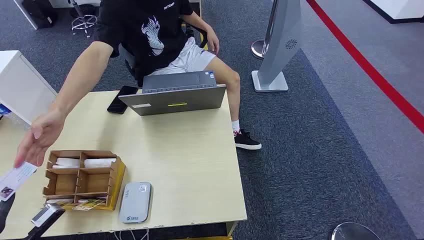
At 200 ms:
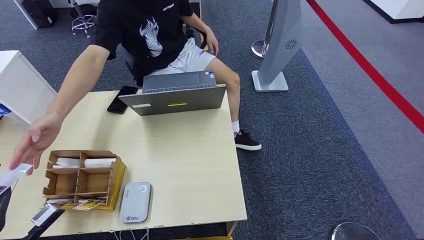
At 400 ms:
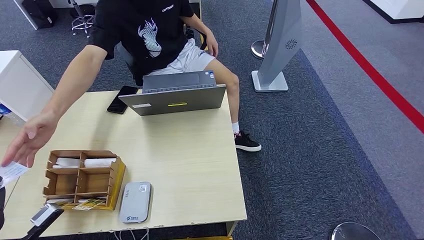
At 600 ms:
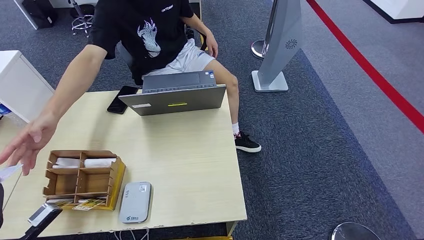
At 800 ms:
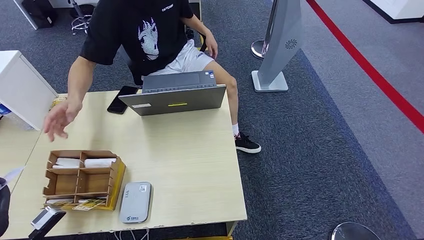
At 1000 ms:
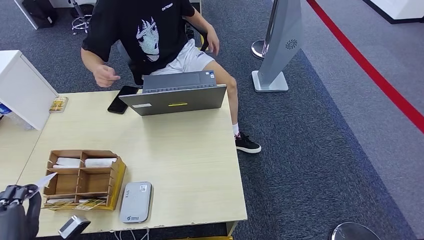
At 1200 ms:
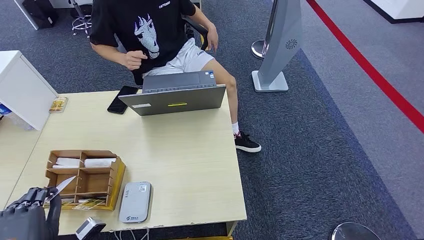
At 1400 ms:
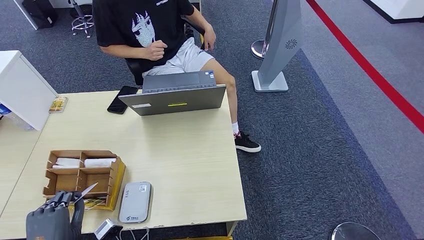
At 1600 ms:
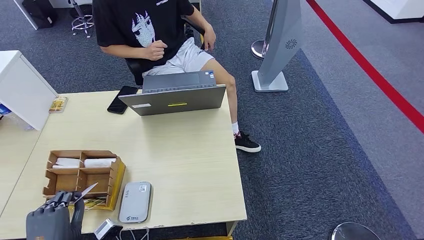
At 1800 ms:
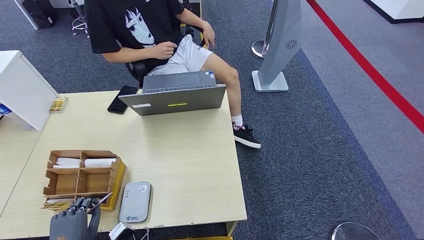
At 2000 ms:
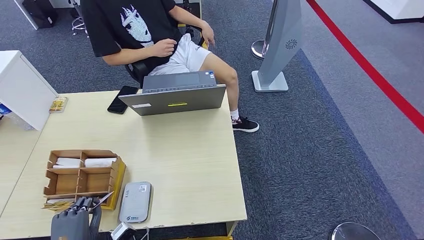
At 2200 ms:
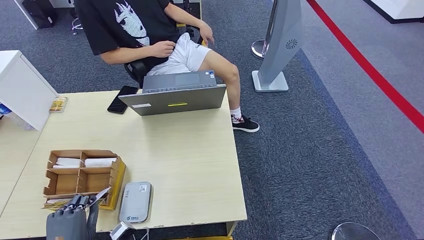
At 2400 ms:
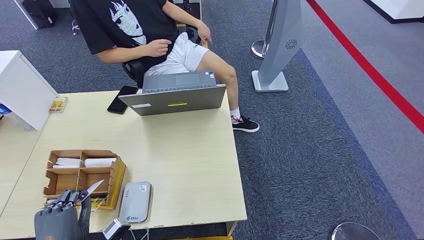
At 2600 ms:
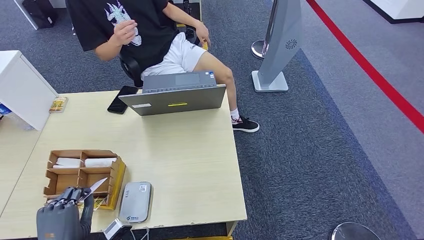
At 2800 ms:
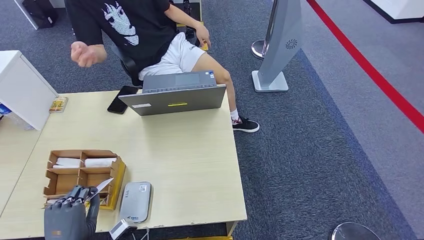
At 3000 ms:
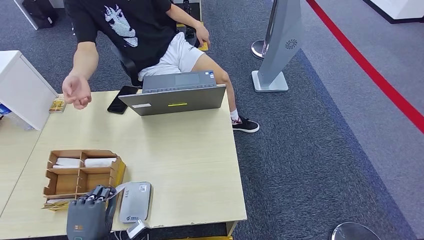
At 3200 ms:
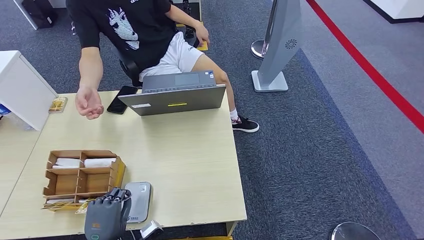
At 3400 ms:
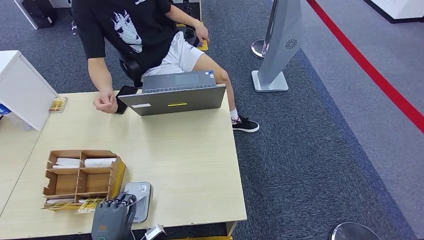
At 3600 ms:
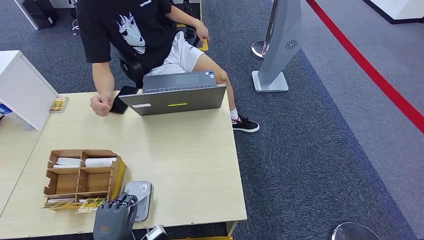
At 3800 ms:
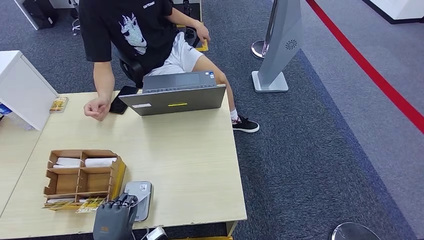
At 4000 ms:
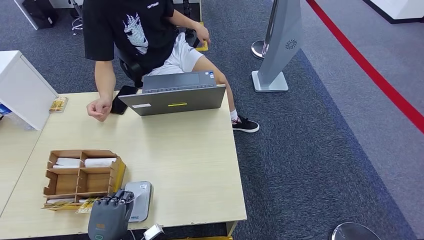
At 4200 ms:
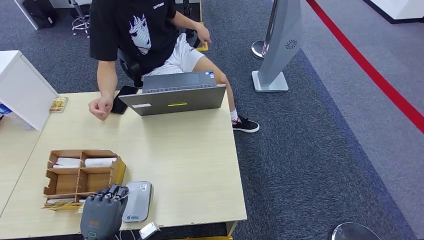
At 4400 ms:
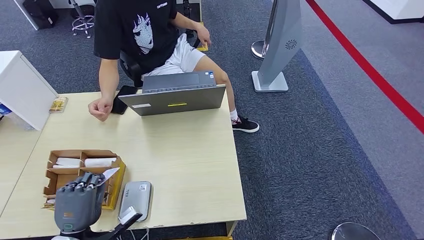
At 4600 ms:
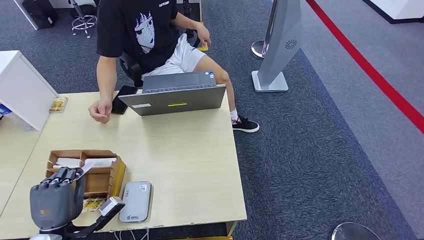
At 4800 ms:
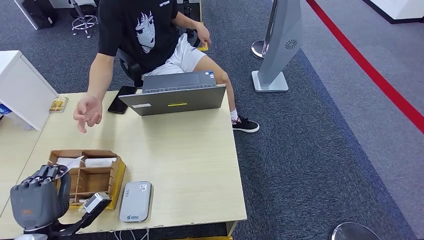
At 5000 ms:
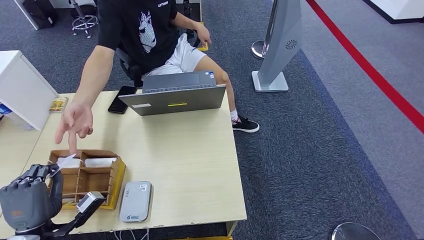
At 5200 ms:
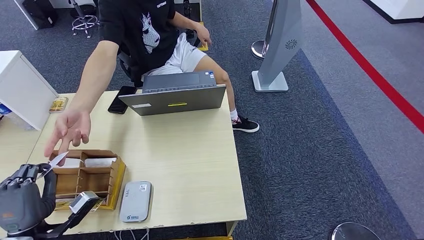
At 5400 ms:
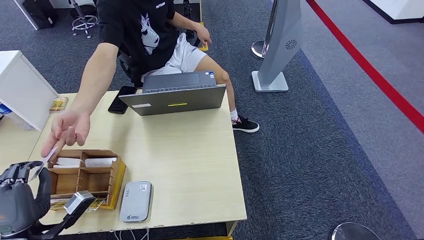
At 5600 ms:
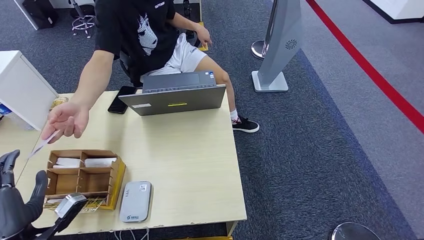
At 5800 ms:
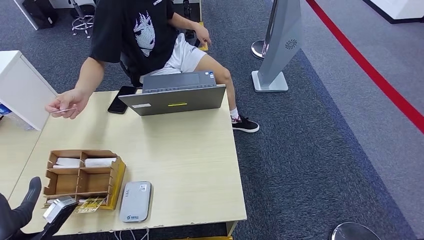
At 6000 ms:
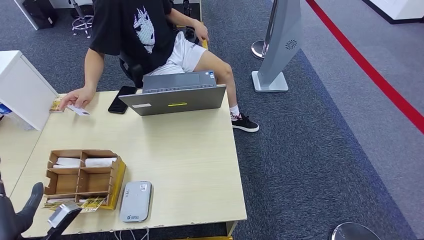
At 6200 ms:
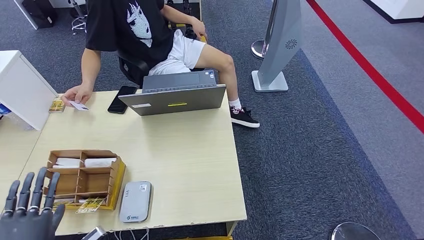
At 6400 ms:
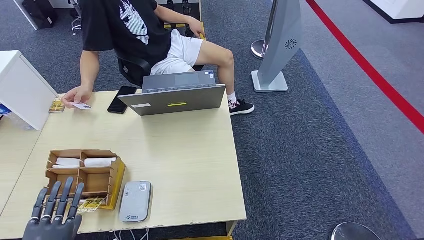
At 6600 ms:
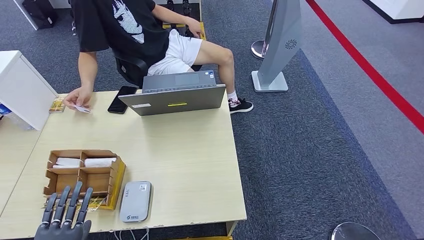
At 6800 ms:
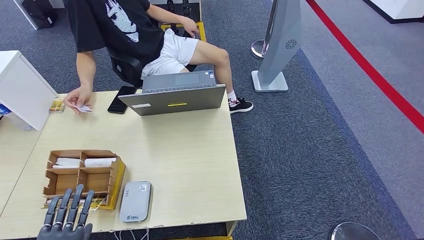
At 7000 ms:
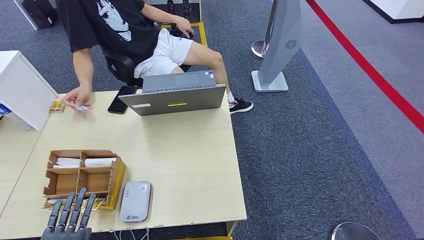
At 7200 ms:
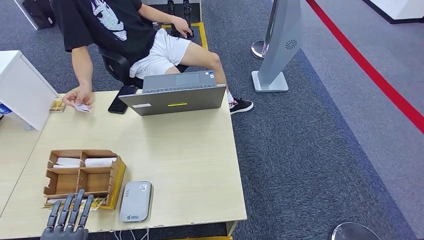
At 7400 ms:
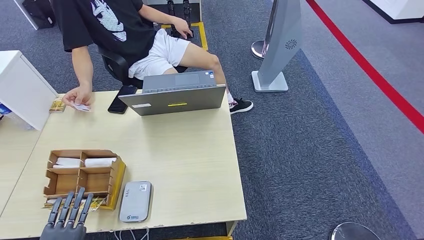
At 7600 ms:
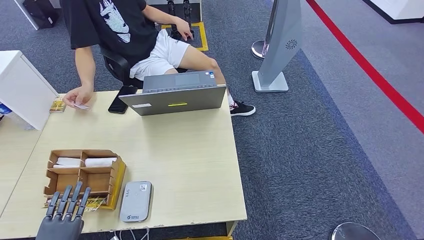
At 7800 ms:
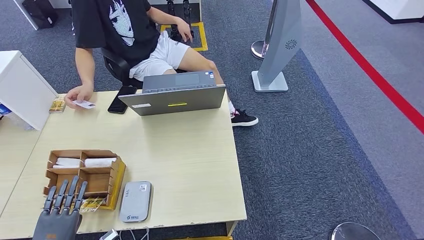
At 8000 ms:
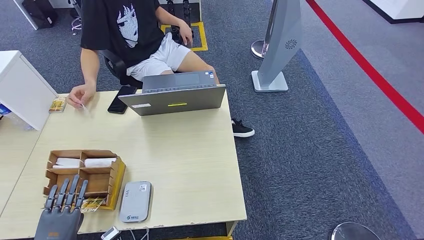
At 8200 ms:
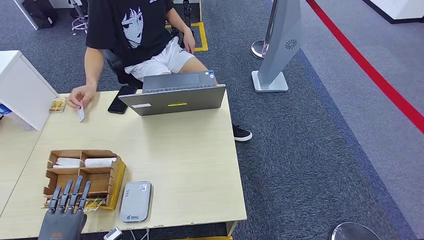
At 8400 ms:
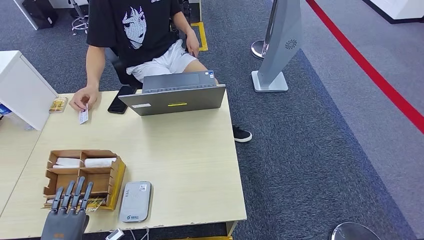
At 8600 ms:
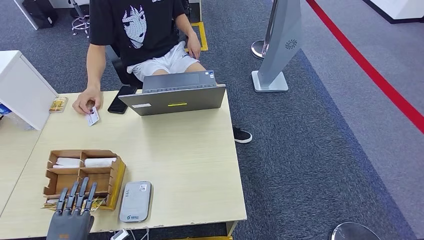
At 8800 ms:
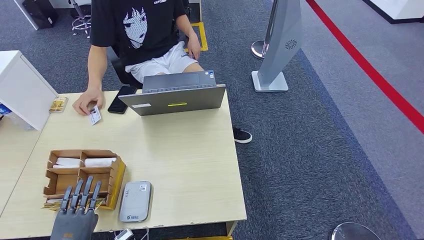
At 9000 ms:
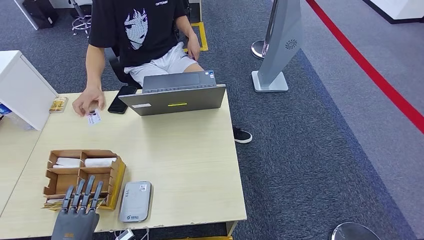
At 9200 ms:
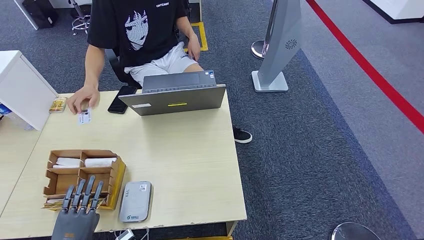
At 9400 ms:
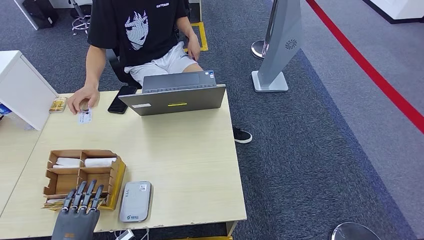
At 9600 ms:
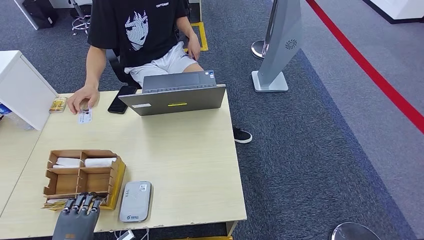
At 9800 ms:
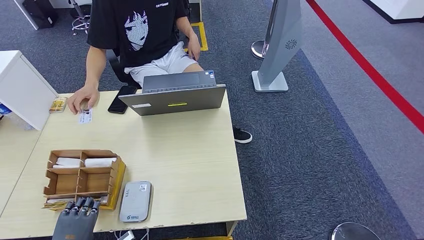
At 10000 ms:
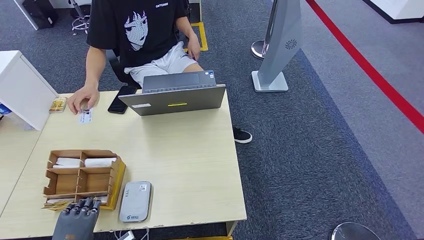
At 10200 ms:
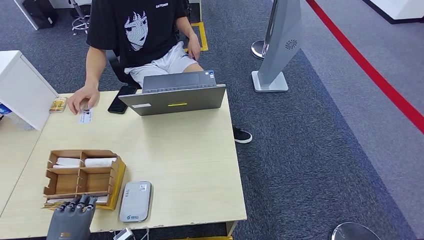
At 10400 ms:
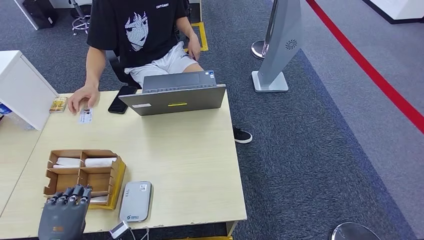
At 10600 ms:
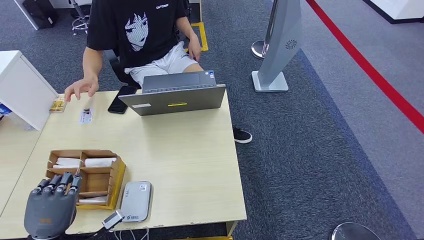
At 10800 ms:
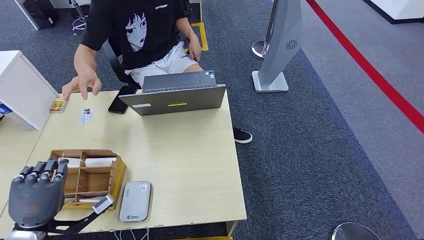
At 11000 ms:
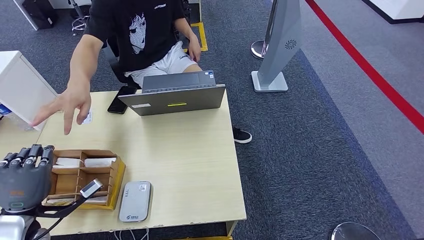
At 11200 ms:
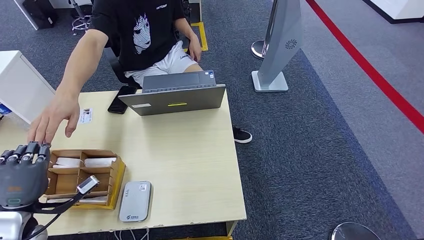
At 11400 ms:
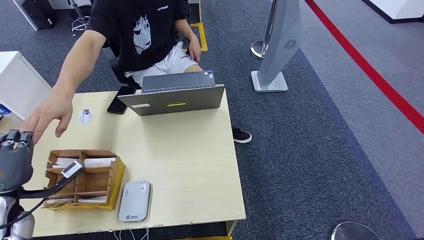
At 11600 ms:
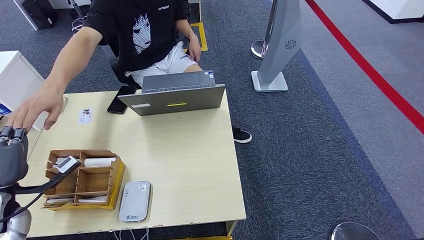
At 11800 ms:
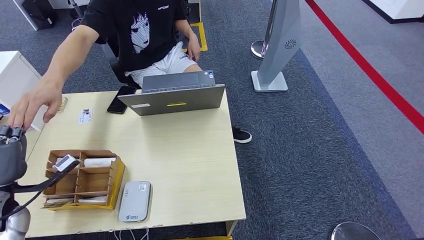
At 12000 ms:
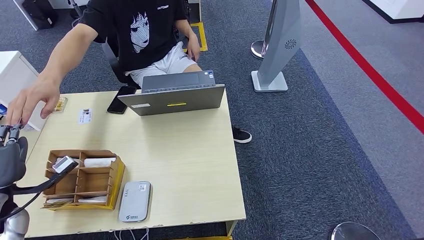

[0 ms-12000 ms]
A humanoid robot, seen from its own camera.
Step, 0 ms to 1600 ms: Take the ID card from the person's hand.
Step, 1800 ms to 4800 ms: Place the ID card on the card reader.
Step, 5000 ms to 6000 ms: Hand the ID card to the person.
Step, 6200 ms to 10800 ms: Pick up the room key from the key card box.
1600 ms to 3000 ms: The hands make only small movements.
3000 ms to 4400 ms: The hands stay close to where they were, moving slightly.
4400 ms to 6000 ms: The left hand travels to the left and upward by approximately 10 cm.
6000 ms to 7600 ms: The left hand moves downward and backward, some 10 cm.
7600 ms to 10400 ms: There are only small adjustments of the hands.
10400 ms to 12000 ms: The left hand heads forward, to the left and upward, covering roughly 20 cm.

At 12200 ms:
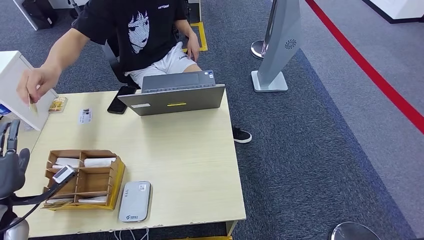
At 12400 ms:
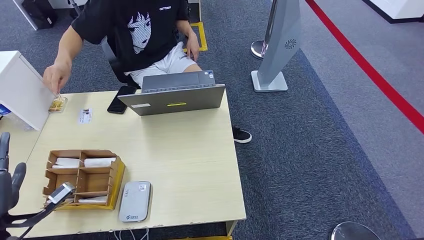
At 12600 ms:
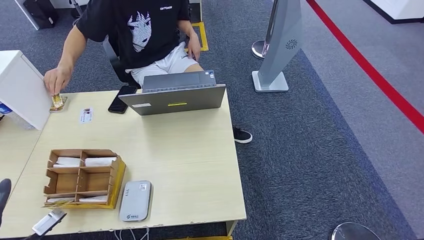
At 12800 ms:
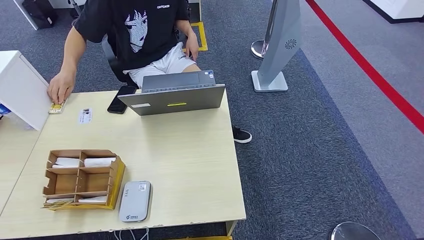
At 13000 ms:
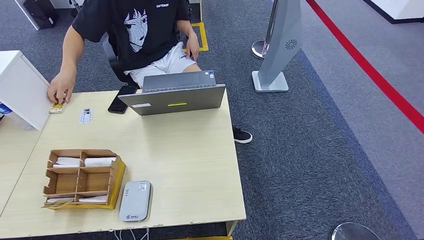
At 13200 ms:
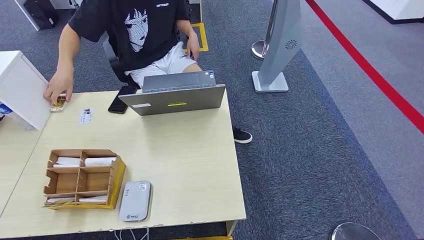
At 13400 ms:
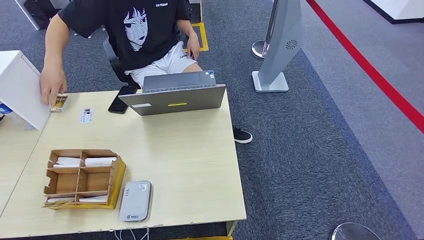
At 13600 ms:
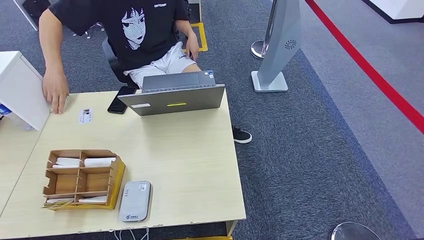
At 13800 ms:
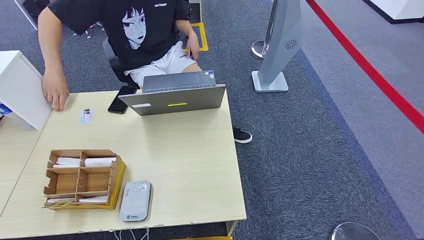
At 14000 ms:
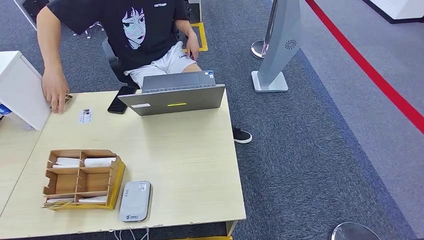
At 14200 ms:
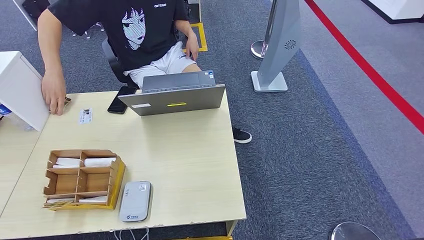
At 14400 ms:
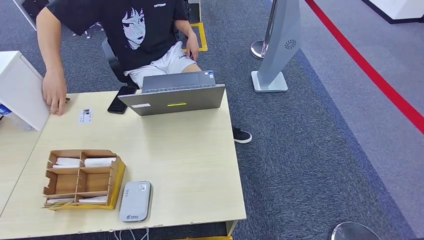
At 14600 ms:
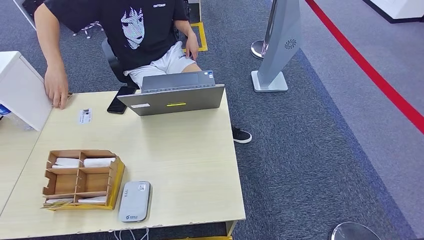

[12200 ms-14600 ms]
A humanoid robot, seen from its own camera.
Step, 12200 ms to 14600 ms: Hand the room key to the person.
12200 ms to 13400 ms: The left hand goes some 20 cm backward.
13400 ms to 14600 ms: The left hand moves downward and to the right, roughly 25 cm.
